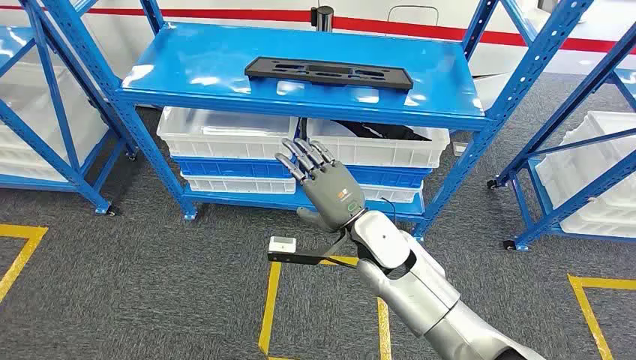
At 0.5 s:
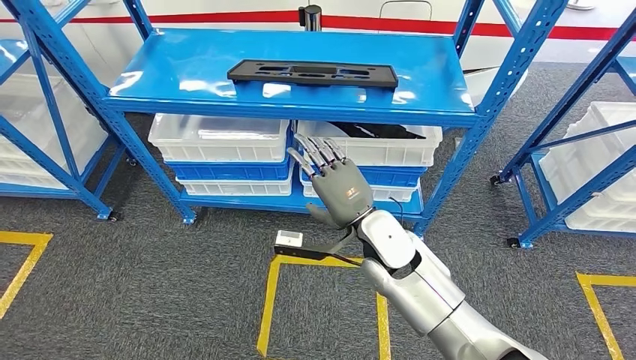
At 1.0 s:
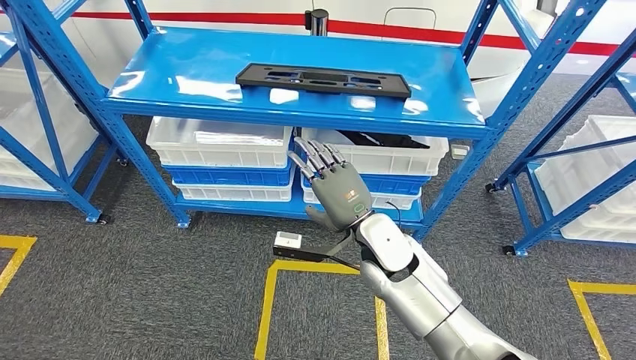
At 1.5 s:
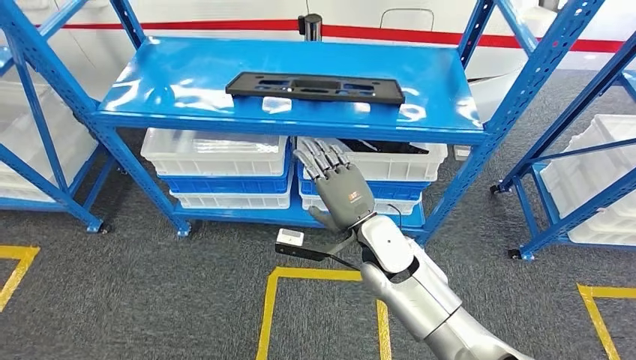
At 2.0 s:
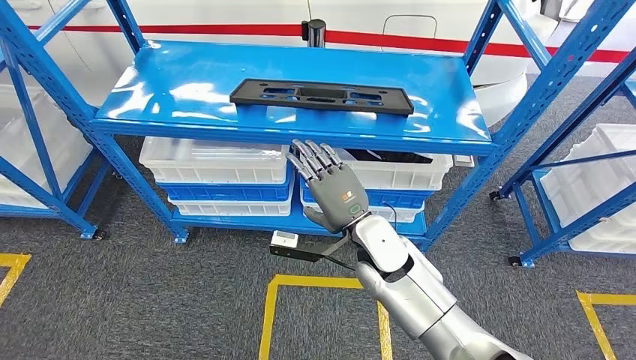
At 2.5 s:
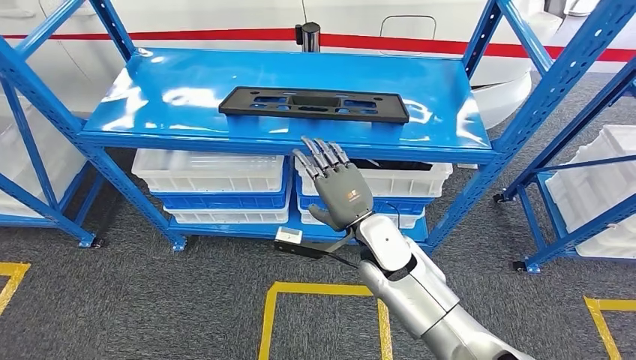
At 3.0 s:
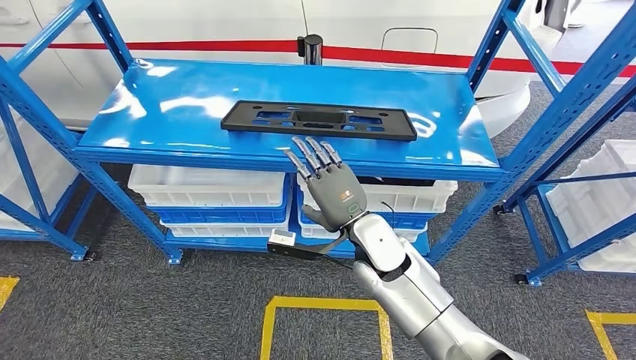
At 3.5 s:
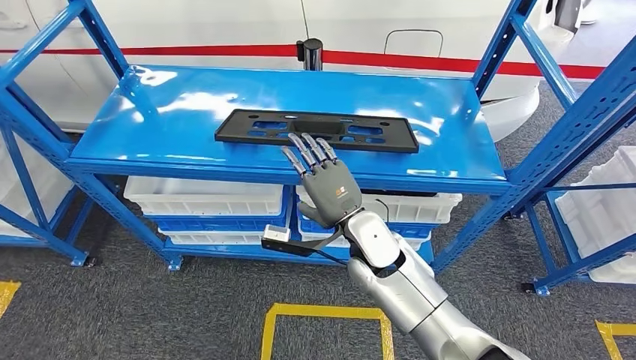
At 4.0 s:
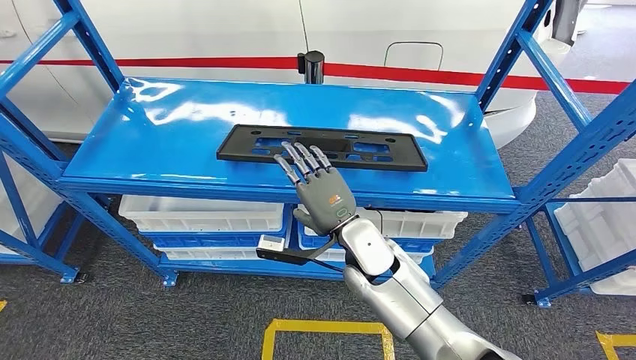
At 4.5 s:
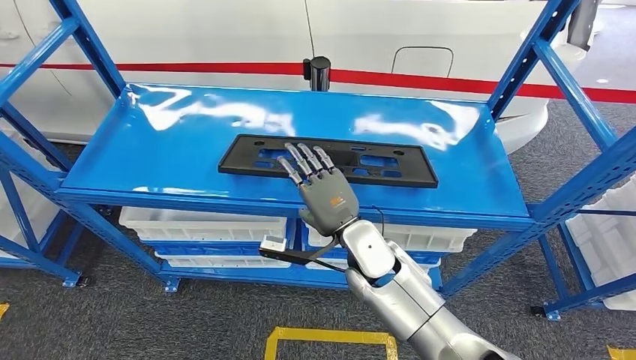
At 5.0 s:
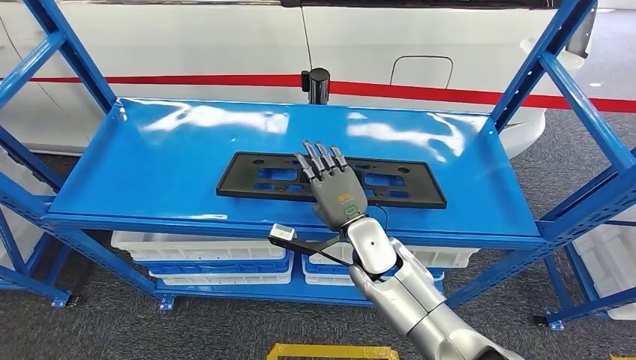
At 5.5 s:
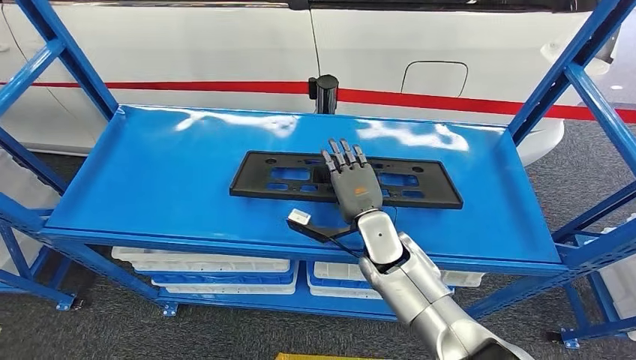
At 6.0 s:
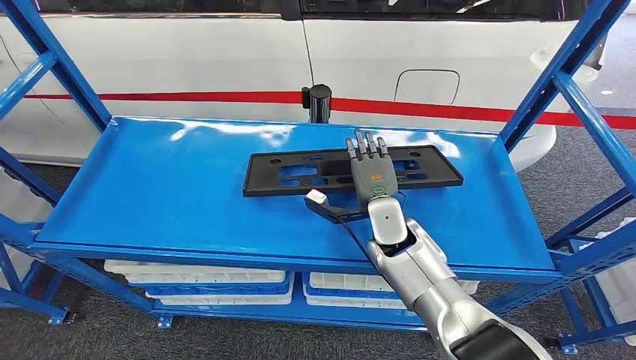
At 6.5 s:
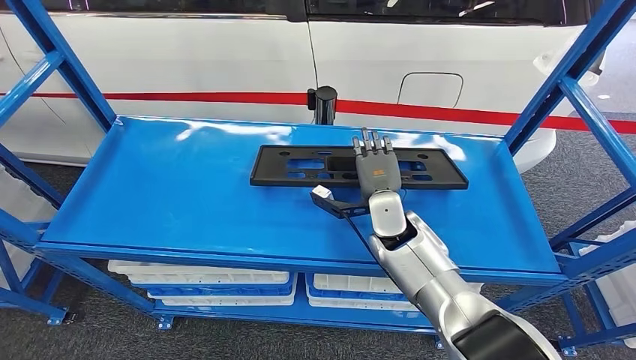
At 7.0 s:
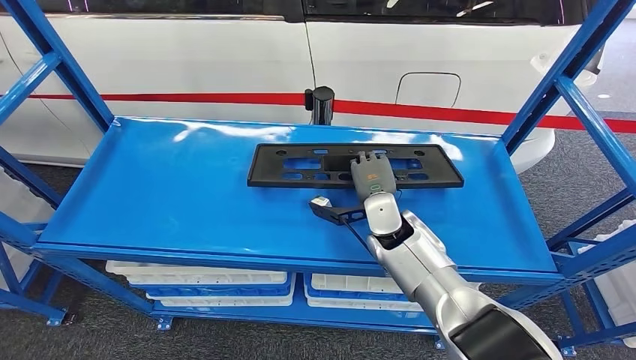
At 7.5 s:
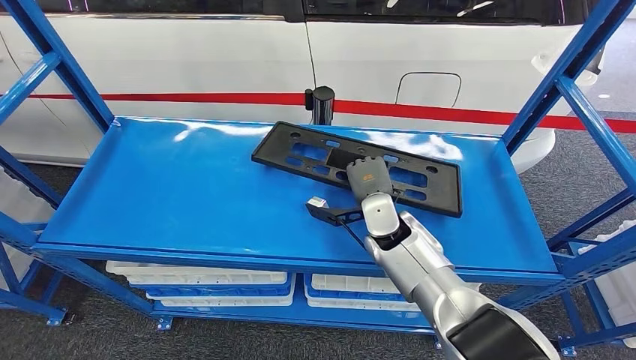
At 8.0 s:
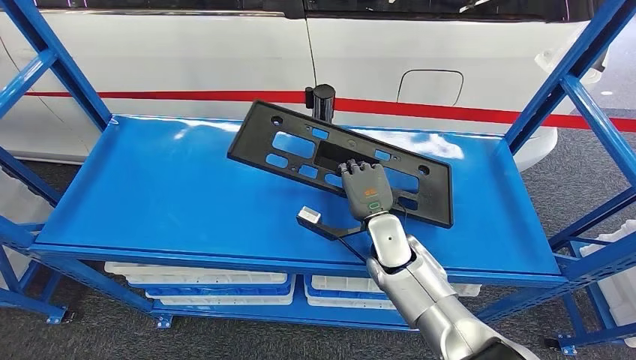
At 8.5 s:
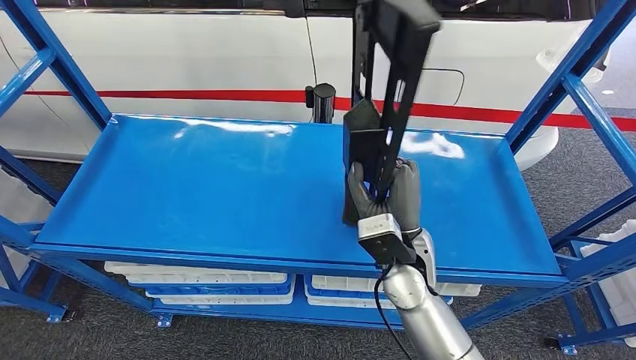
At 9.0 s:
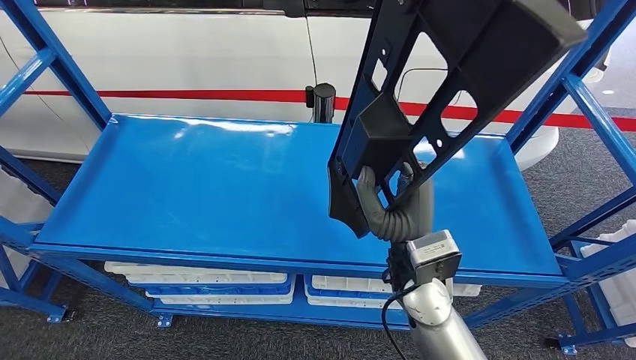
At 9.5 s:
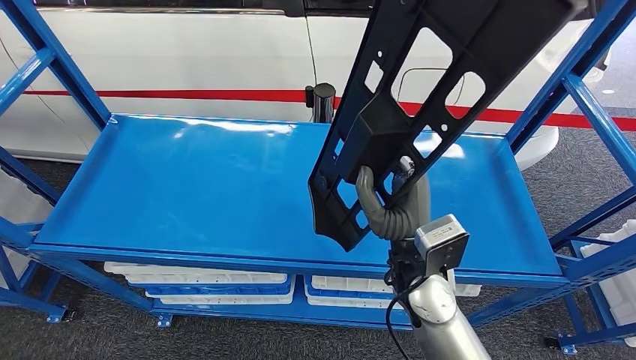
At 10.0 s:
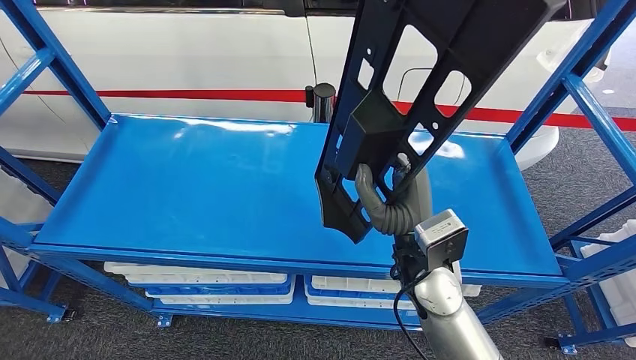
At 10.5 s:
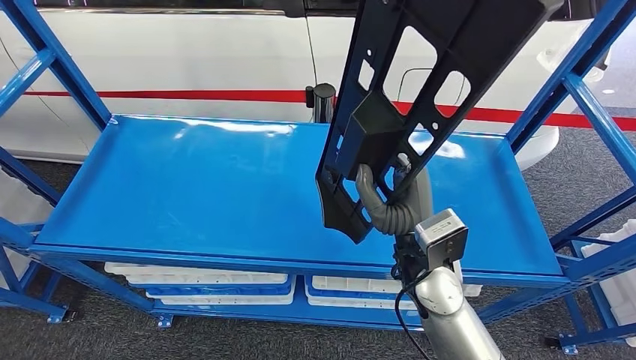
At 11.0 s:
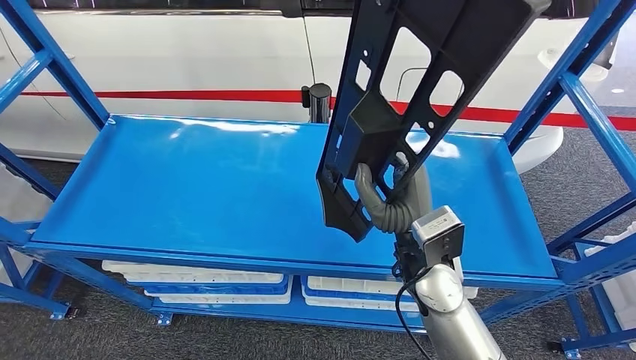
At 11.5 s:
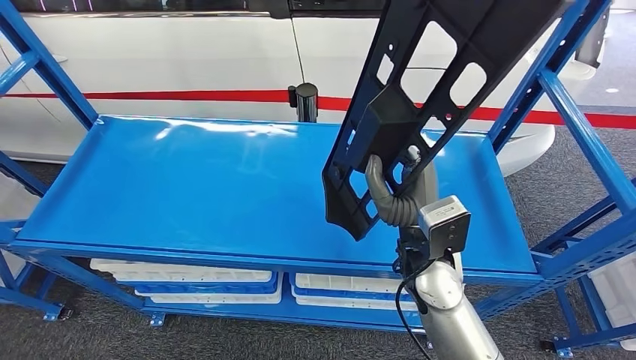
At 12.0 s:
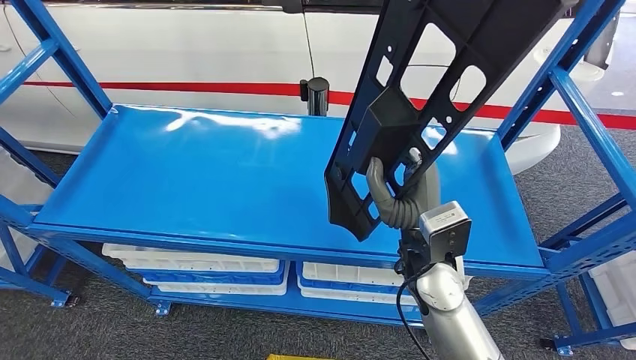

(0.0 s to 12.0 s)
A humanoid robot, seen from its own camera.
Step, 0.0 s - 10.0 s: Pick up the large material from the shelf.

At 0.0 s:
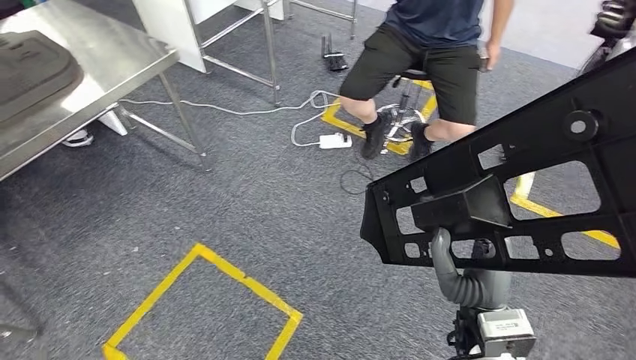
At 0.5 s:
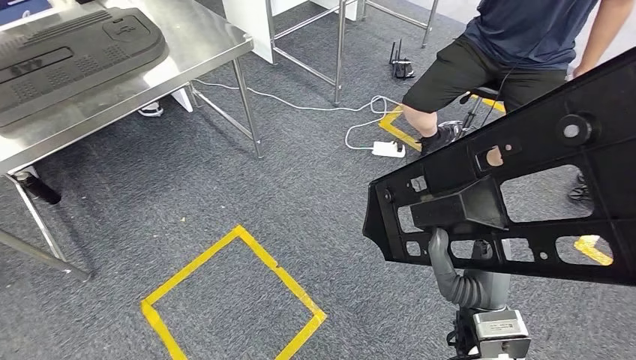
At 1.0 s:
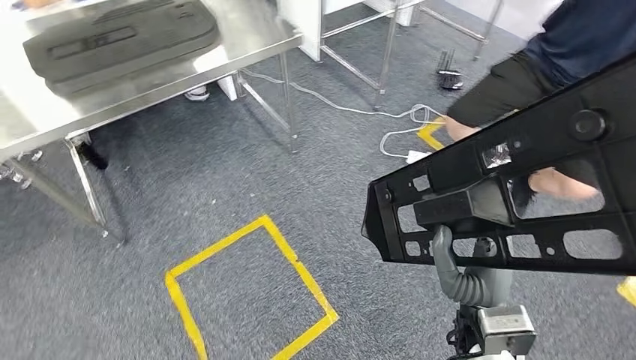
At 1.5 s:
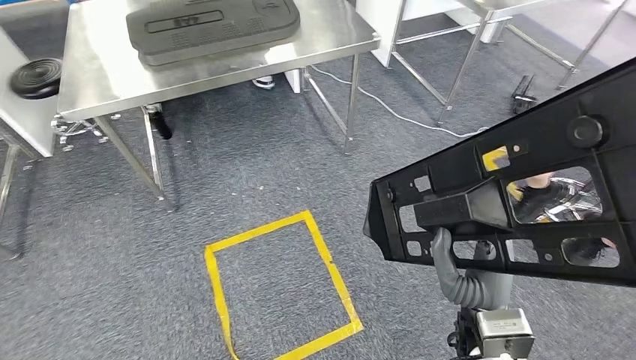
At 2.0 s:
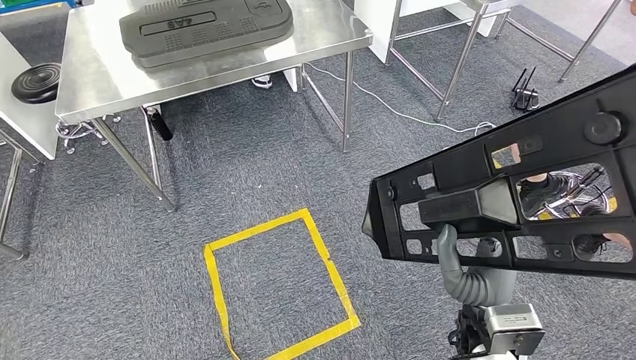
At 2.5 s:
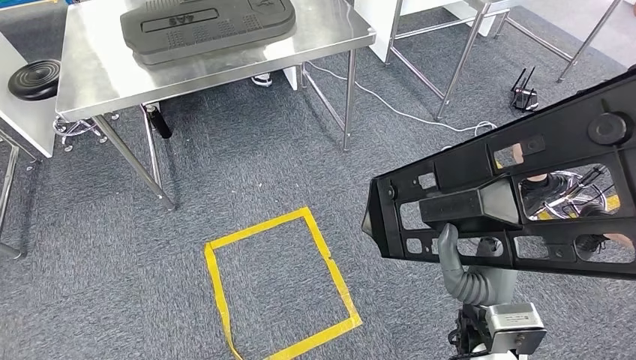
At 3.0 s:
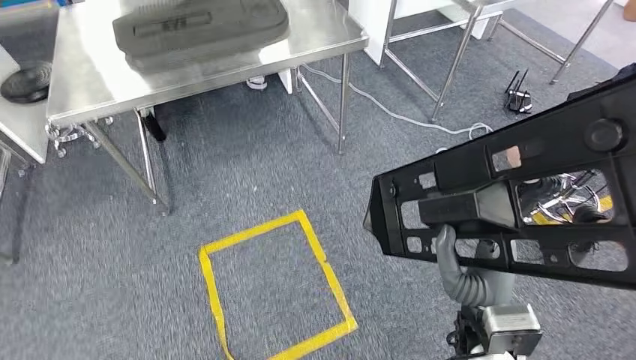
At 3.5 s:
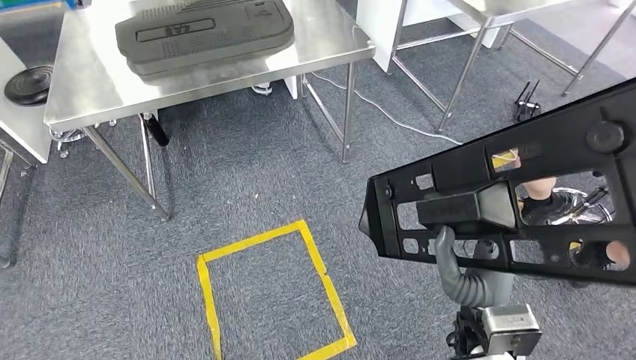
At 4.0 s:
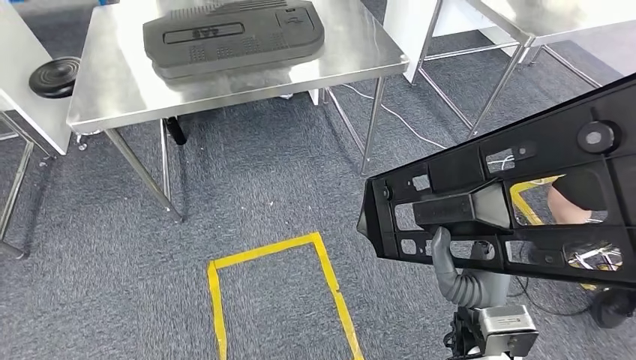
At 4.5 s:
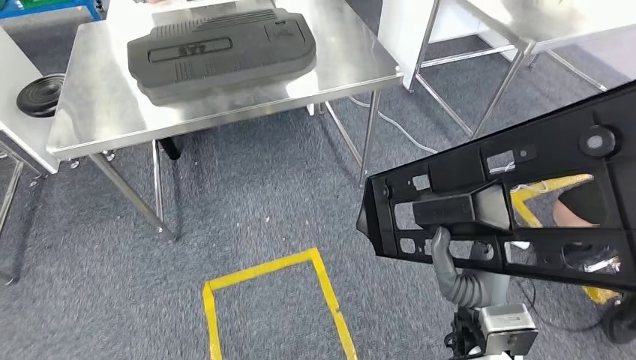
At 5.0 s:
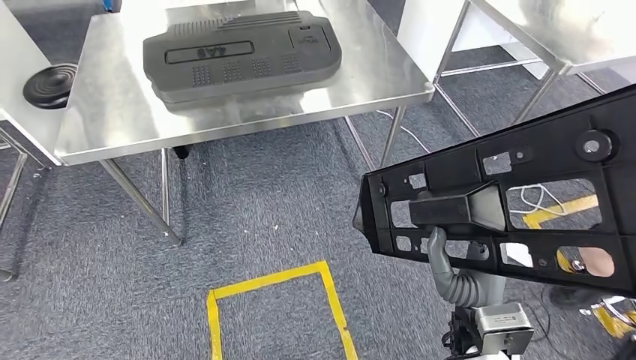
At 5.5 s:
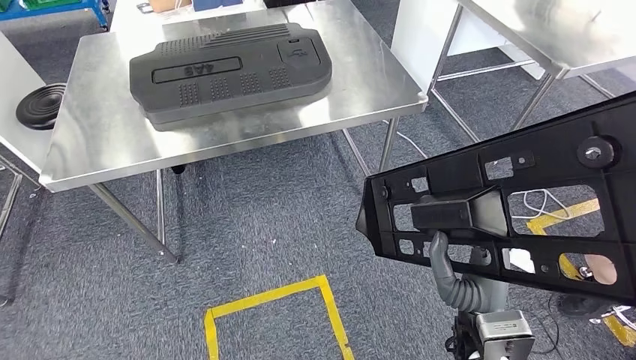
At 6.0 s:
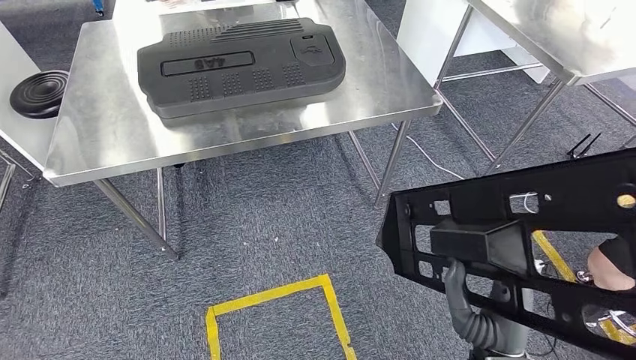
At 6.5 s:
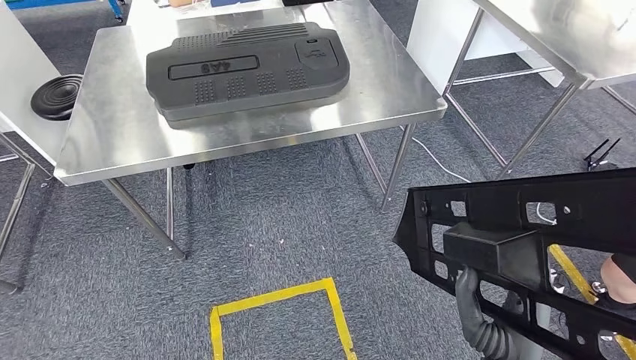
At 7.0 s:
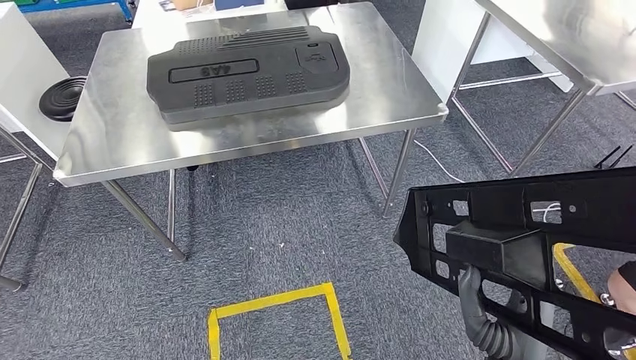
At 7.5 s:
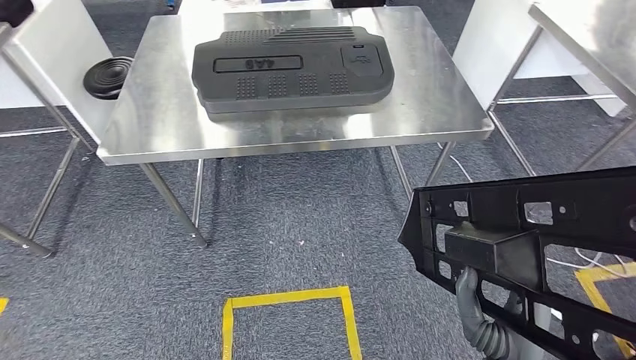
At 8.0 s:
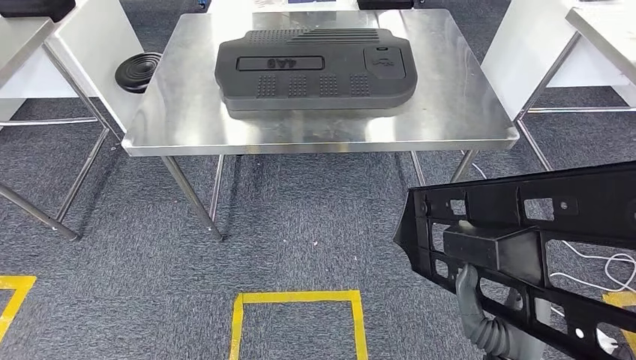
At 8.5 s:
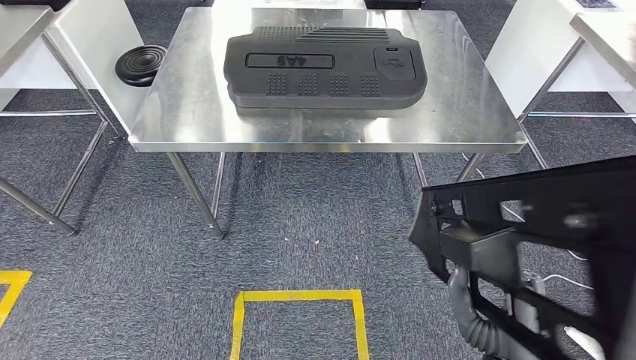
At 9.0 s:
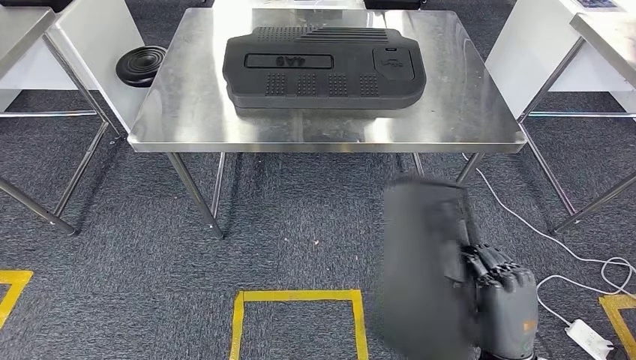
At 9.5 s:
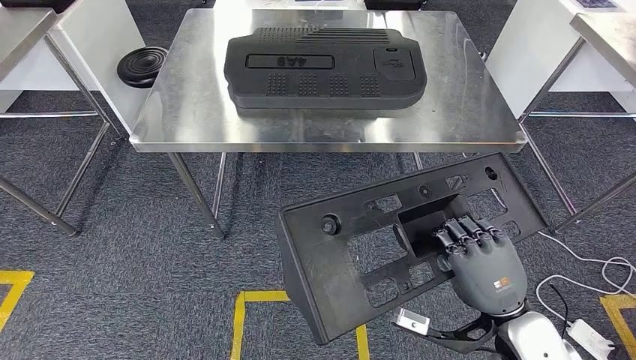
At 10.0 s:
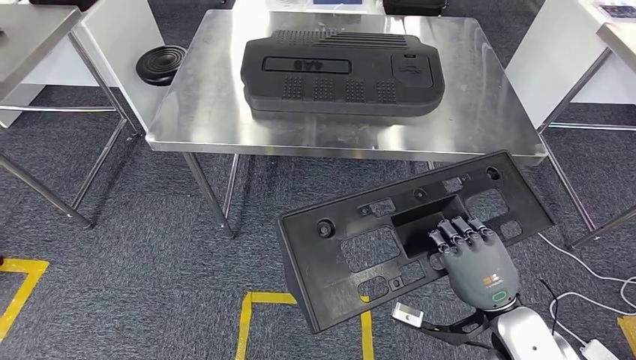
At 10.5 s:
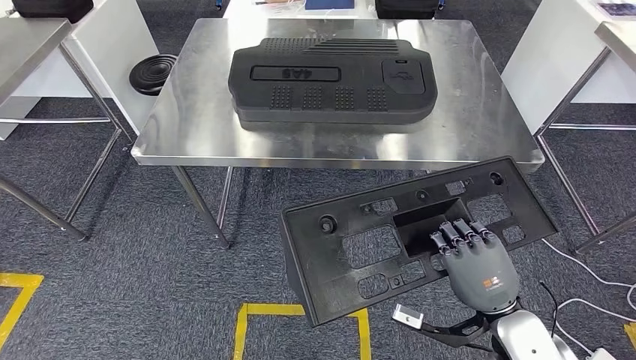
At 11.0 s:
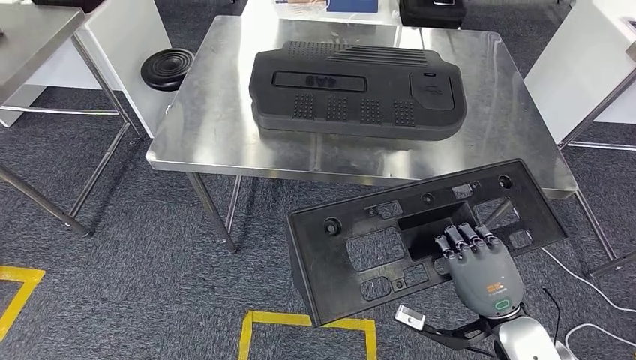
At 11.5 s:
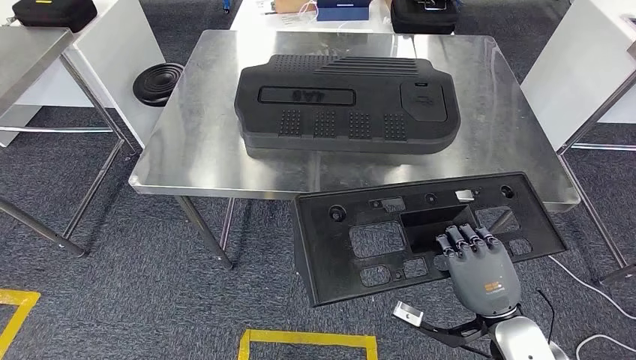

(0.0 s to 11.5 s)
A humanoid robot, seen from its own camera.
Step, 0.0 s - 5.0 s: Move the large material to the workbench.
